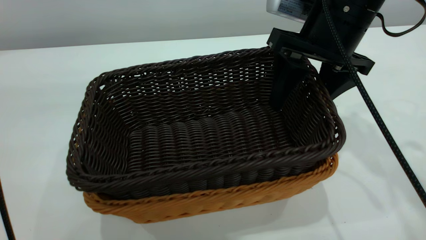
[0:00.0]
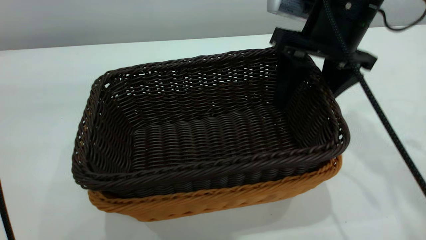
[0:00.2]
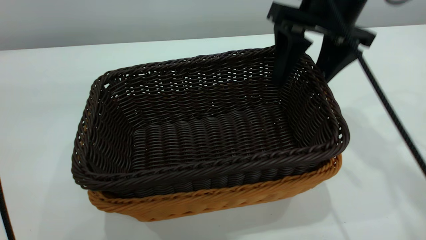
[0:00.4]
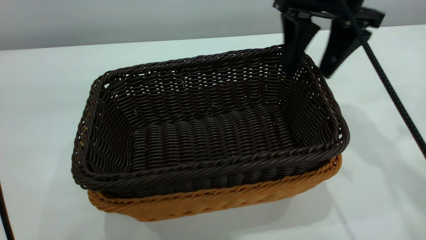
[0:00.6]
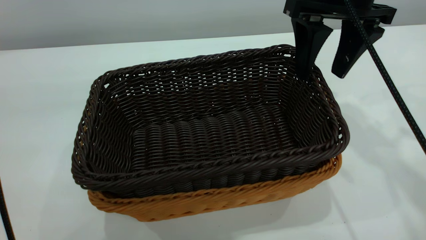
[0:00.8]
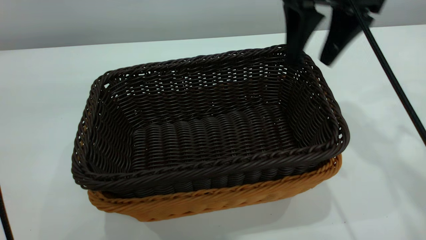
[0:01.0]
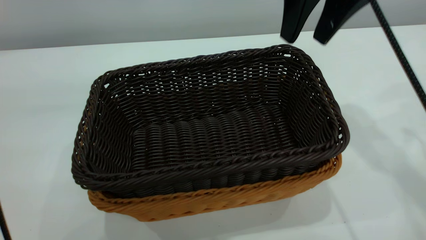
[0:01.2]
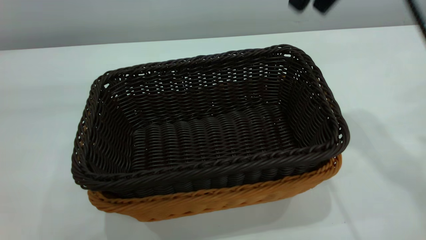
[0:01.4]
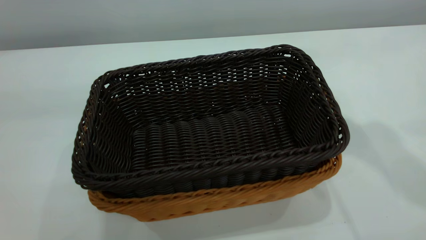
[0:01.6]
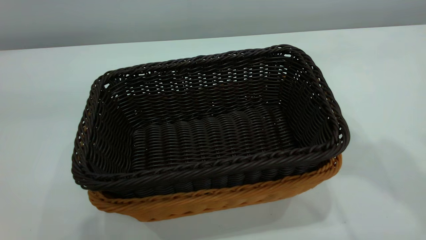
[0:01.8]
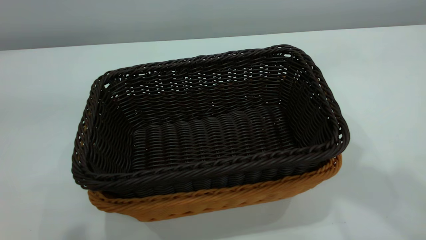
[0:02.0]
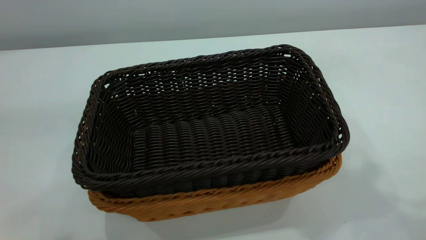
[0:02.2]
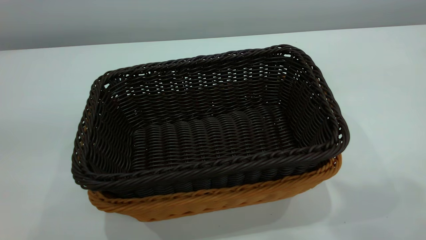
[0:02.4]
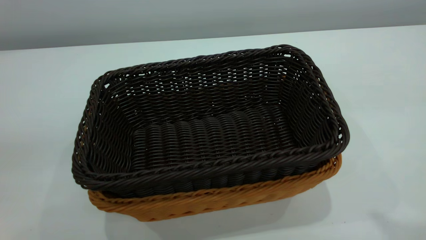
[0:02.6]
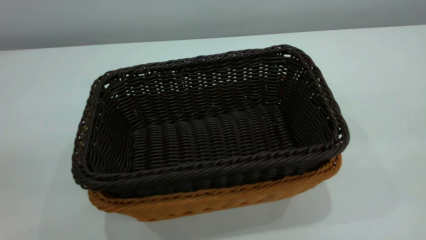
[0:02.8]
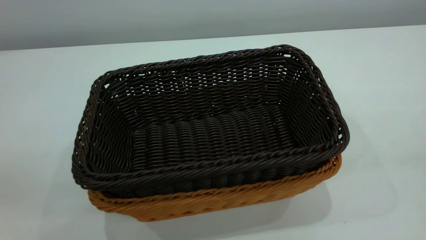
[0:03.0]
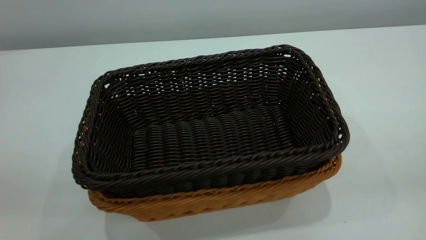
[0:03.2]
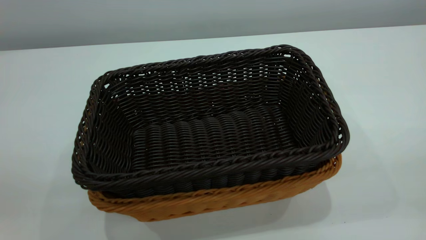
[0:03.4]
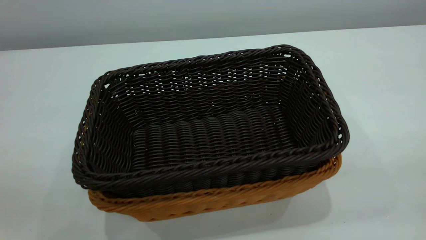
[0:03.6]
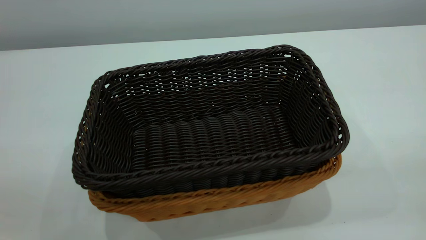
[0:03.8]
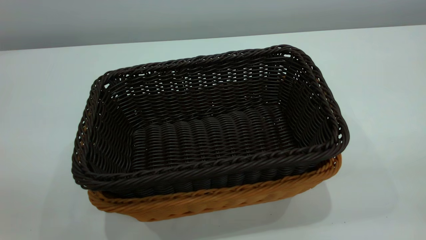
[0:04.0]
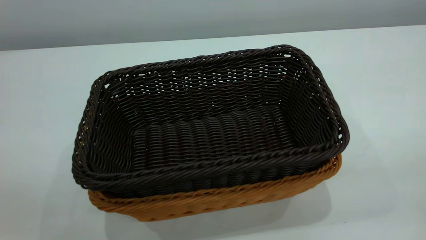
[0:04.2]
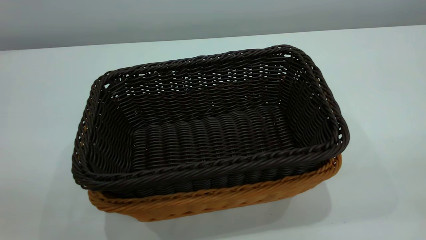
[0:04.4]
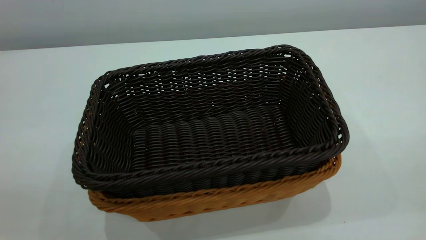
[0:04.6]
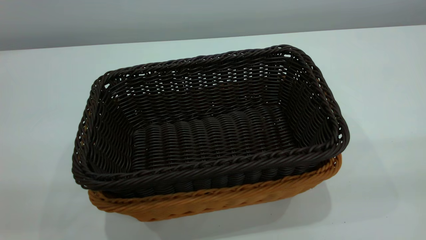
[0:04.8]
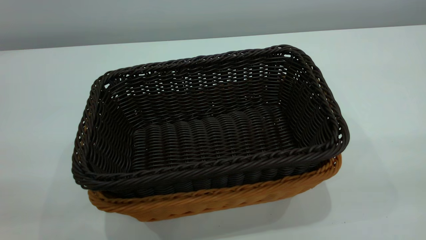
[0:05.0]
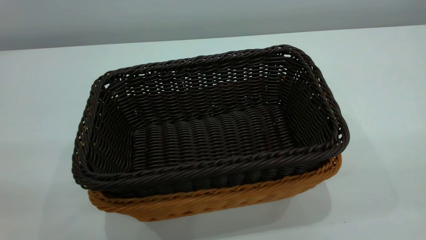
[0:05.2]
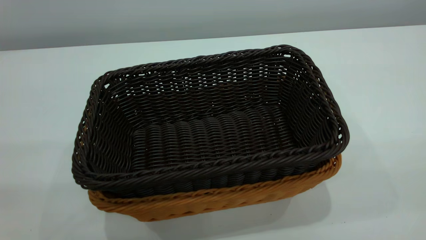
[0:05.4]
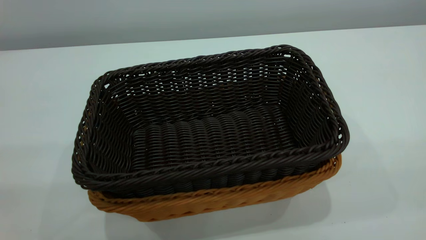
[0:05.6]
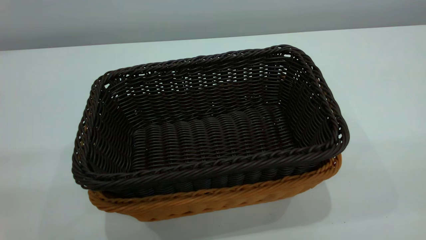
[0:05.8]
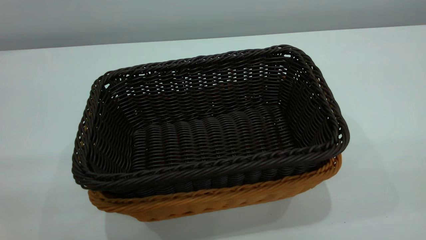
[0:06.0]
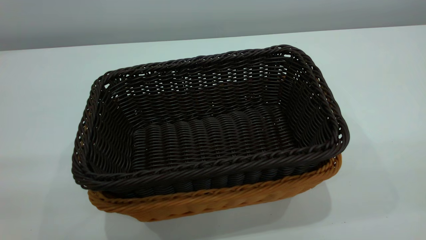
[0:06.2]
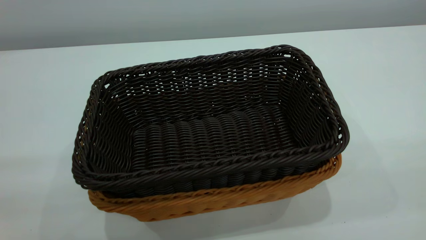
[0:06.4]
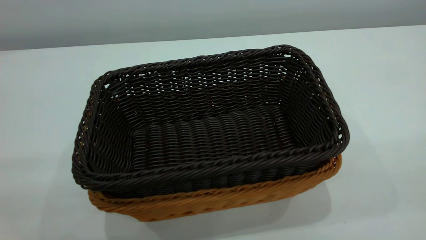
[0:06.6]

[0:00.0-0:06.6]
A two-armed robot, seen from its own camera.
Task of the whole recording: the left gripper grasp the brown basket and place it in the center of the table, the right gripper grasp the black basket and place it inside the brown one.
0:00.0 to 0:01.6: The right gripper goes about 15 cm upward, and closes its fingers. Meanwhile the left gripper ends up some 5 cm from where it was, and closes.
